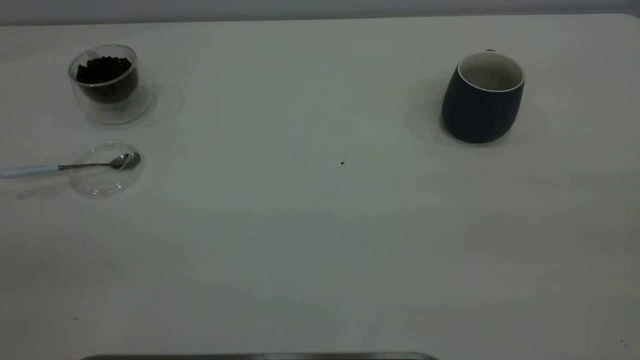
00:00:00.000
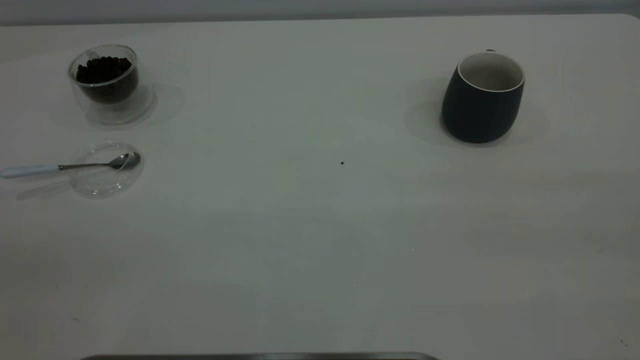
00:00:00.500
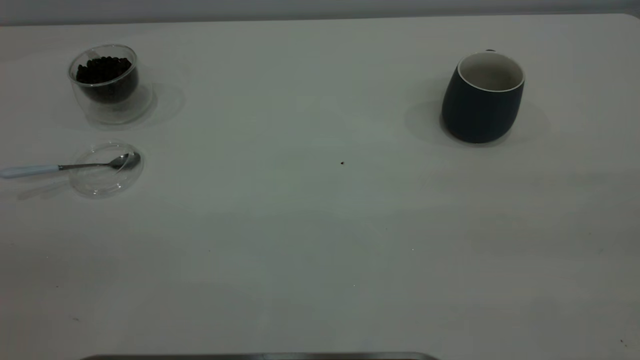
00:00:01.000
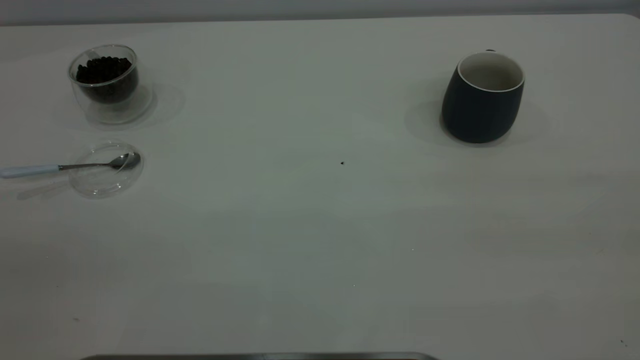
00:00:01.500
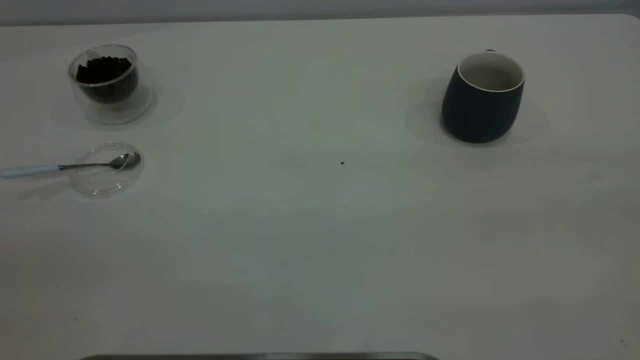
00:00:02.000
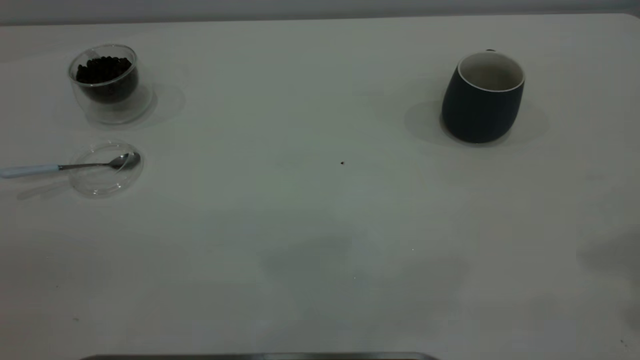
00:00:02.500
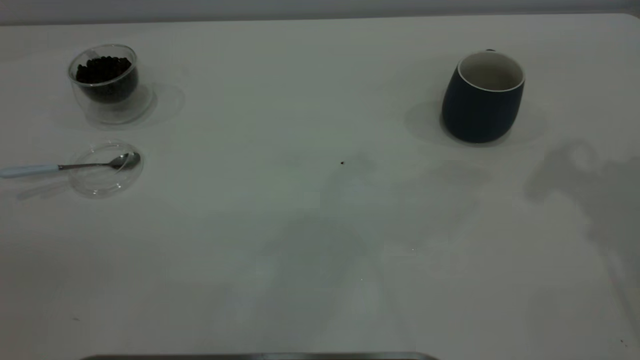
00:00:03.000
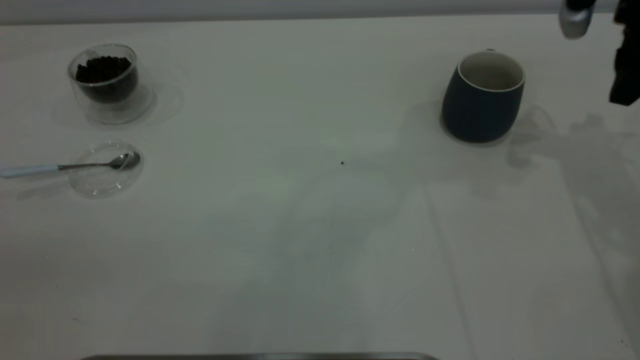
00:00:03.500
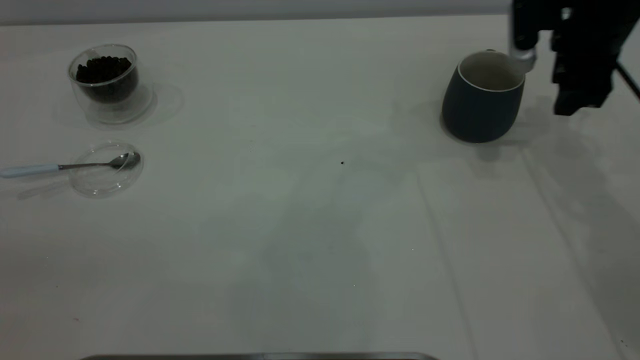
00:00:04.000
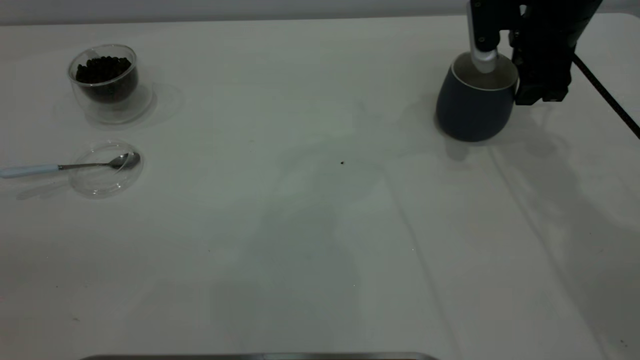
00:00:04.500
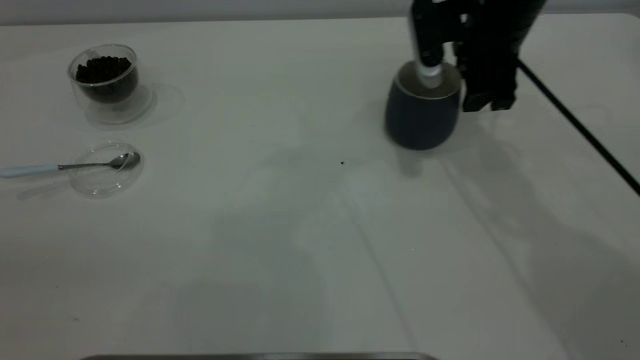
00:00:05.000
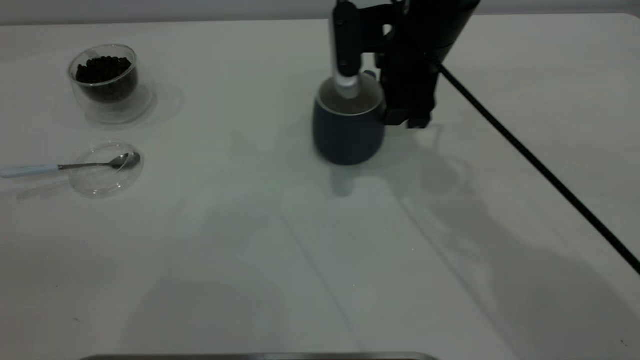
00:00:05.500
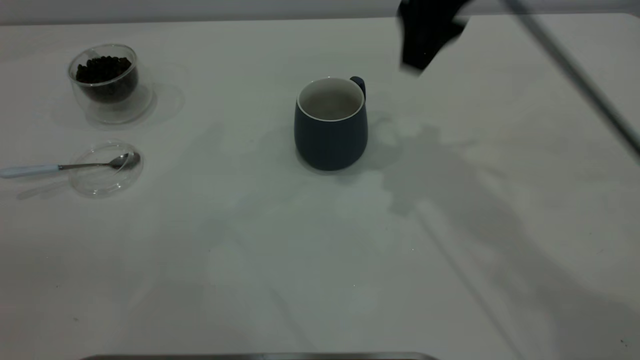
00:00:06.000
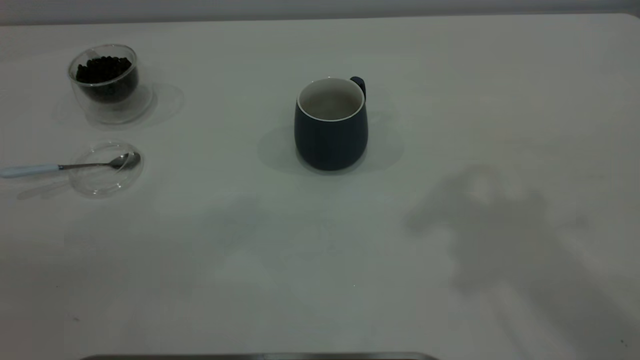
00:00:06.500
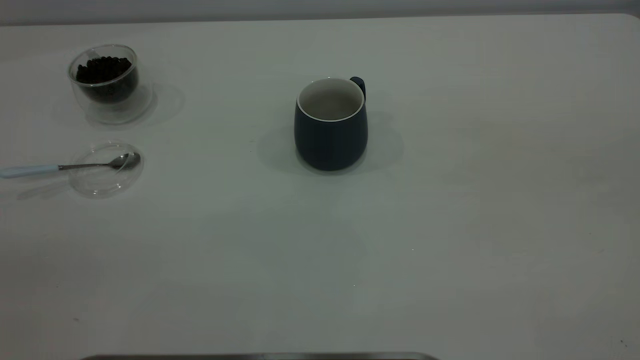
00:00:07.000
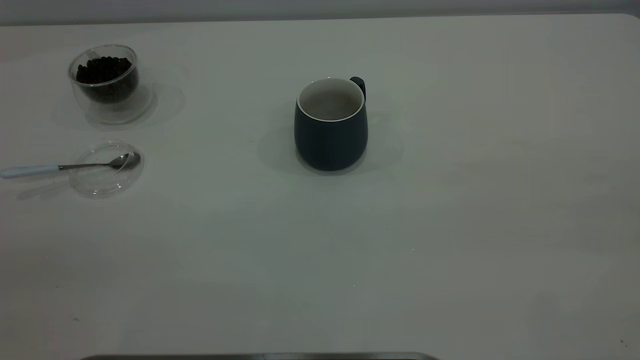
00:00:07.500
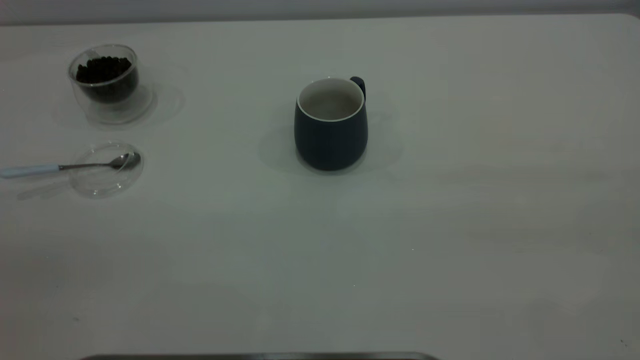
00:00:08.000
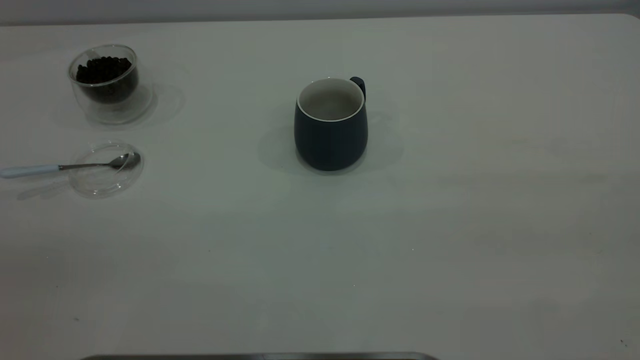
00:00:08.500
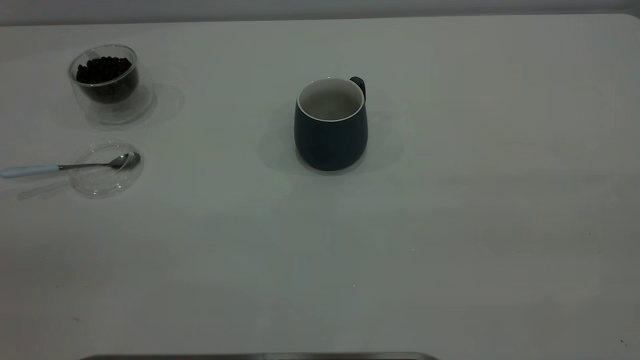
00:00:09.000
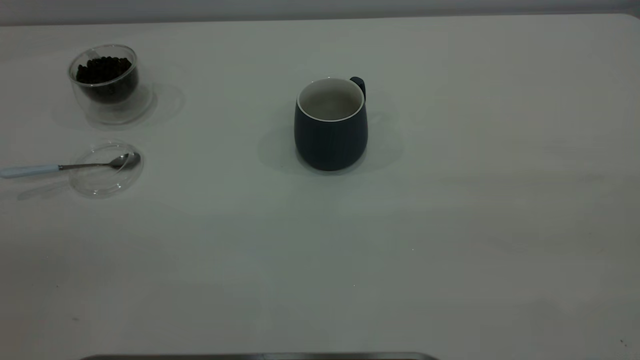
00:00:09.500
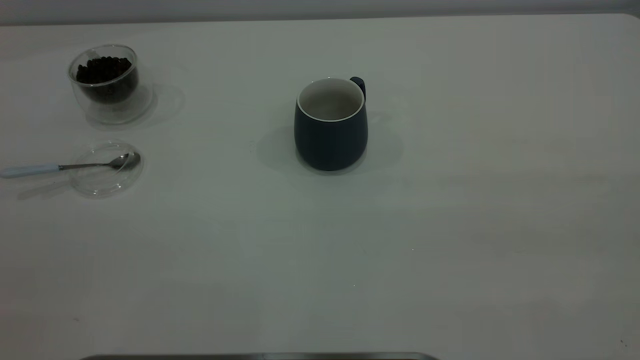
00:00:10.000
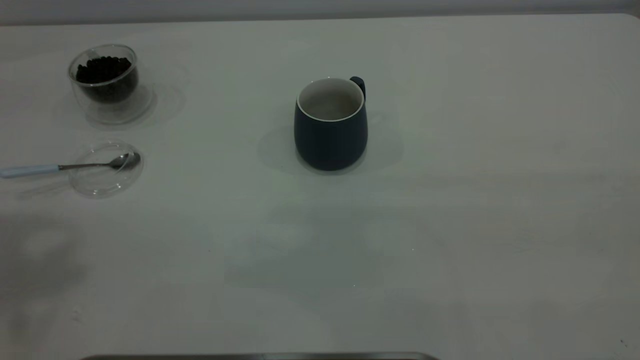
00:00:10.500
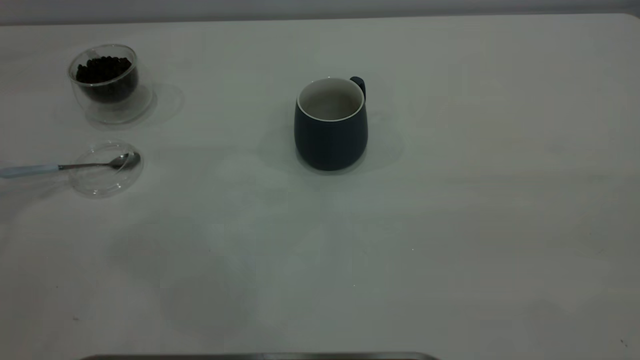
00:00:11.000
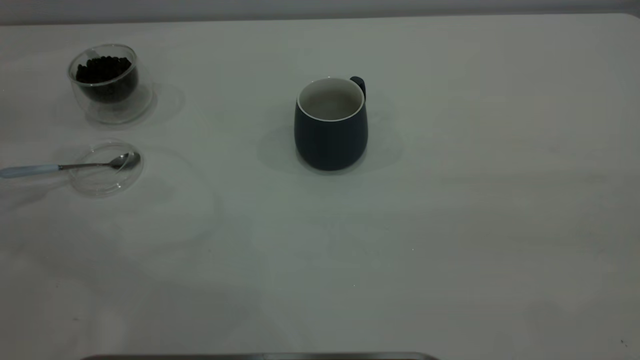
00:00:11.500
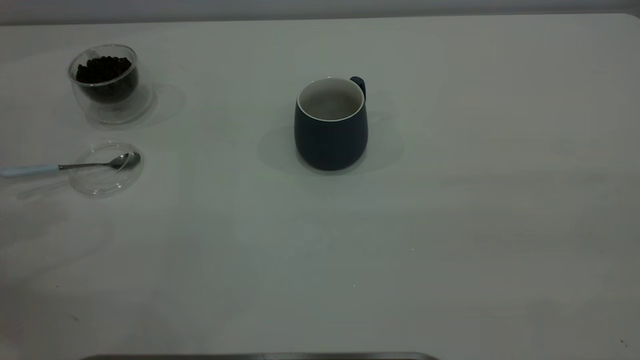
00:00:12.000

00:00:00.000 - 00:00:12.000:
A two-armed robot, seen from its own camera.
Task of the whole recording: the right gripper place the grey cup in the center of the table, the left gripper take the blue spoon from the cup lid and scoop out the coffee beans from the coffee cup and put them into the grey cup, the left gripper put the spoon back into the cup lid.
Step, 00:00:00.000 - 00:00:05.500: Move the cup to the center of view.
00:00:02.000 - 00:00:04.000: The right gripper travels forward and downward by some 50 cm.
00:00:04.000 - 00:00:06.000: The right gripper heads to the left, upward and backward, covering about 20 cm.
00:00:06.000 - 00:00:08.000: The right gripper goes approximately 40 cm backward and to the right.

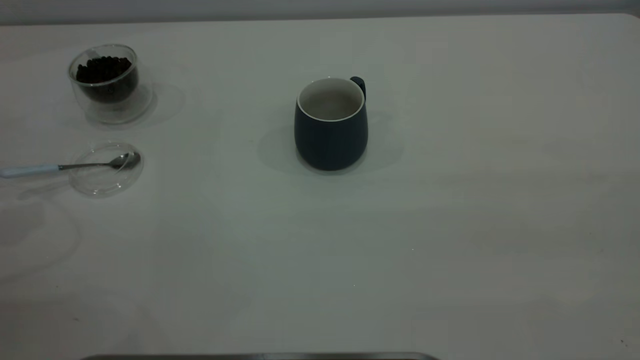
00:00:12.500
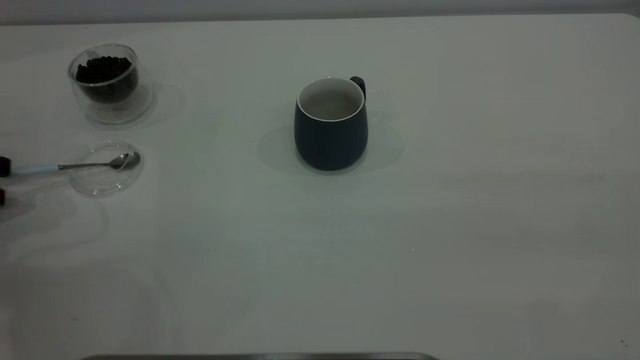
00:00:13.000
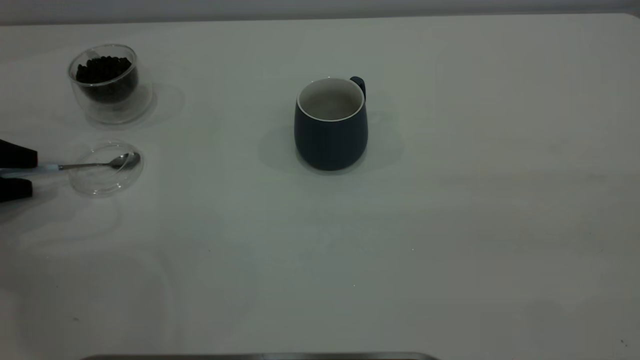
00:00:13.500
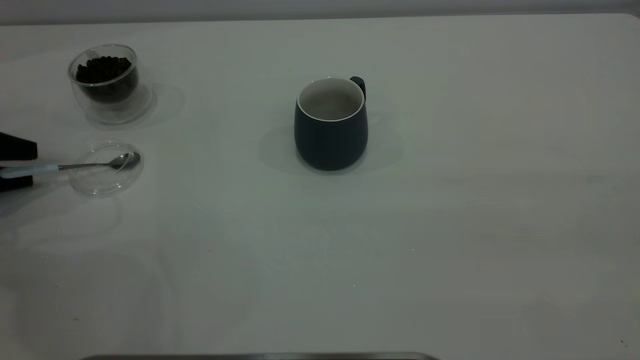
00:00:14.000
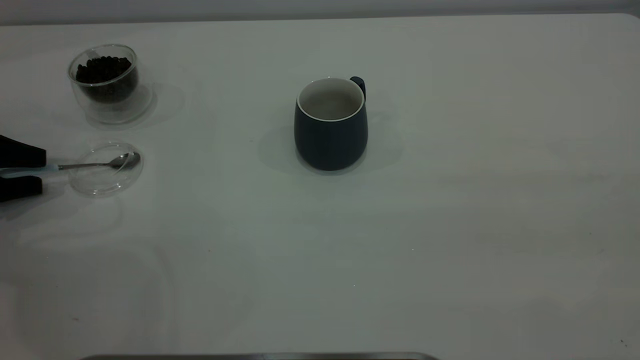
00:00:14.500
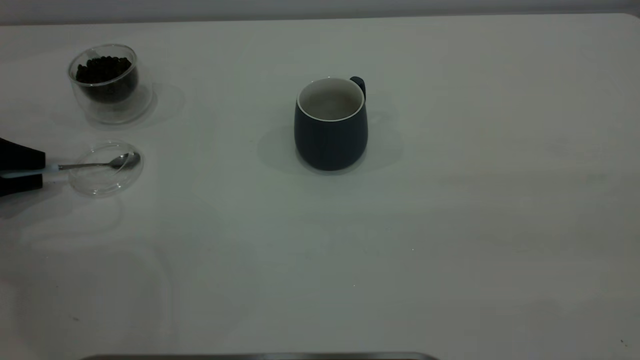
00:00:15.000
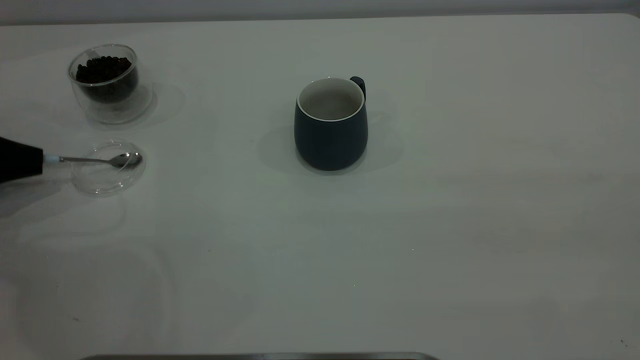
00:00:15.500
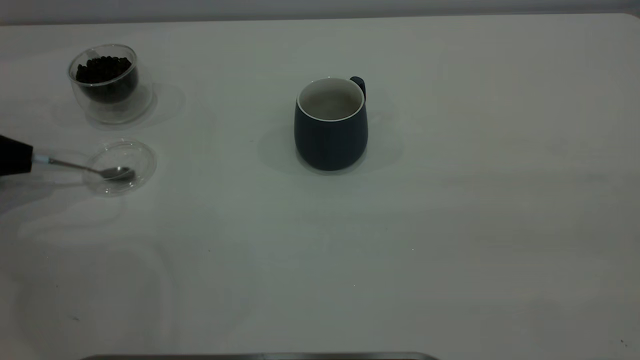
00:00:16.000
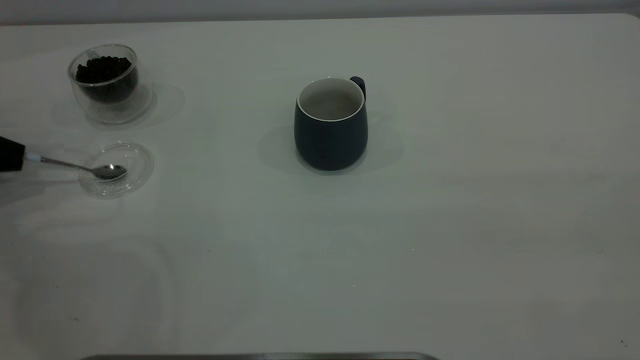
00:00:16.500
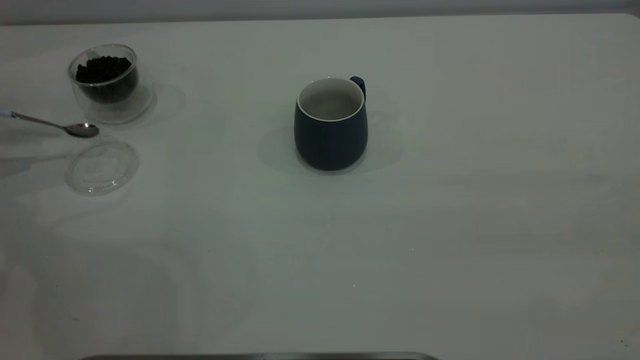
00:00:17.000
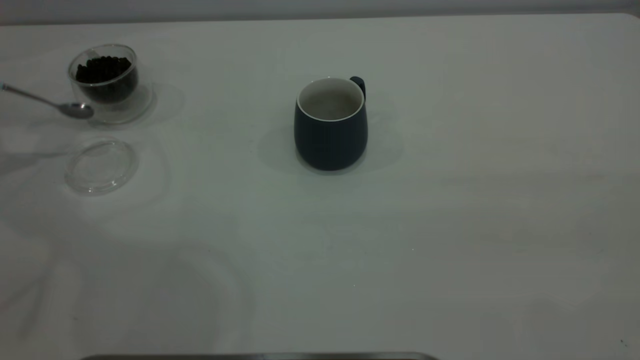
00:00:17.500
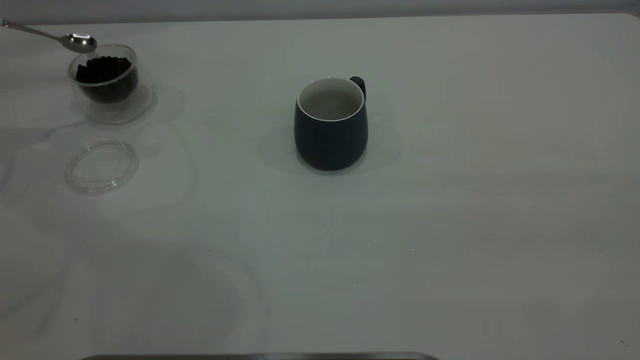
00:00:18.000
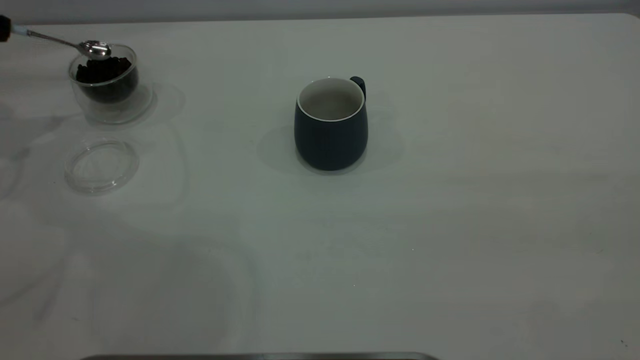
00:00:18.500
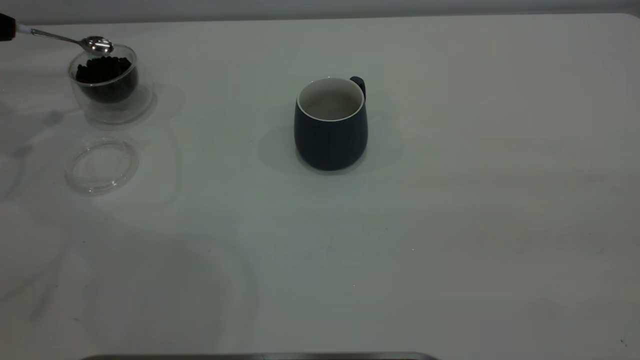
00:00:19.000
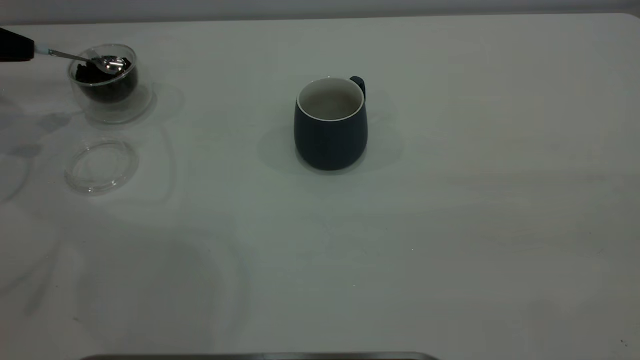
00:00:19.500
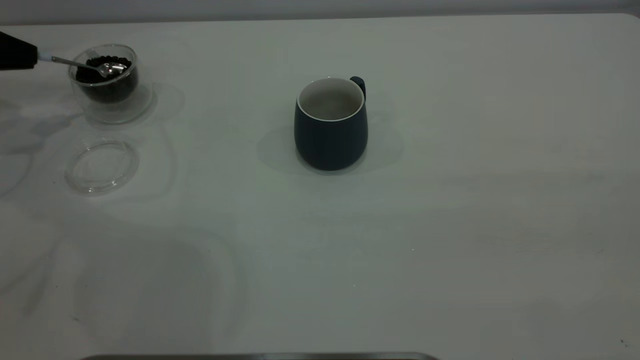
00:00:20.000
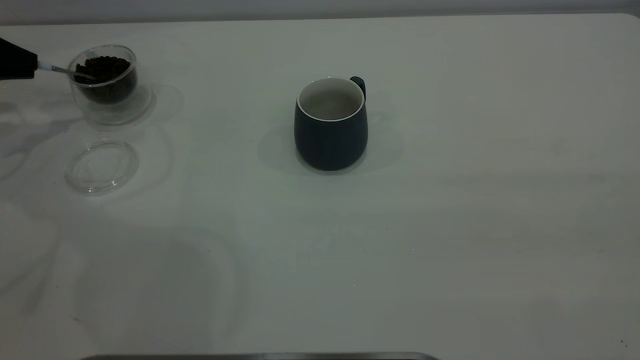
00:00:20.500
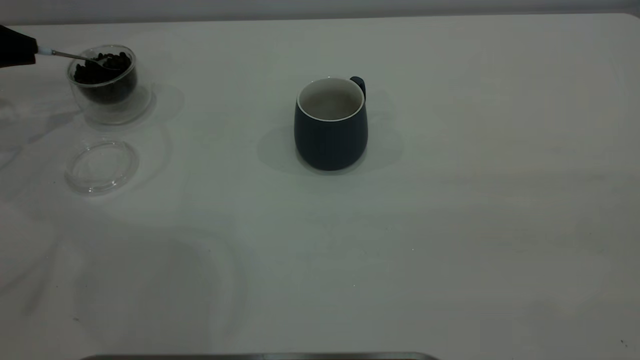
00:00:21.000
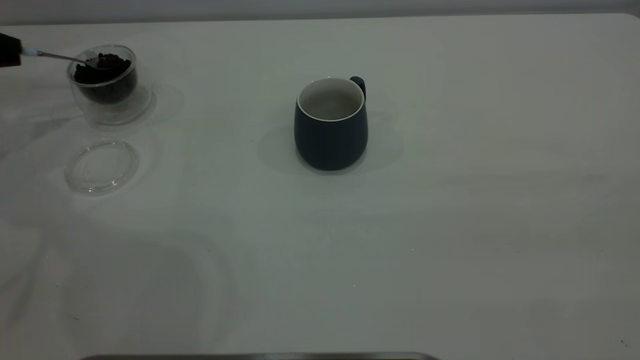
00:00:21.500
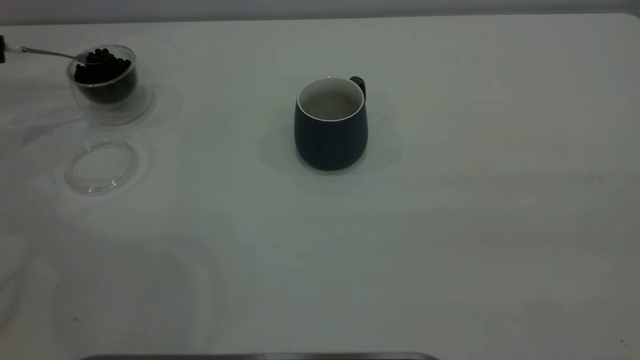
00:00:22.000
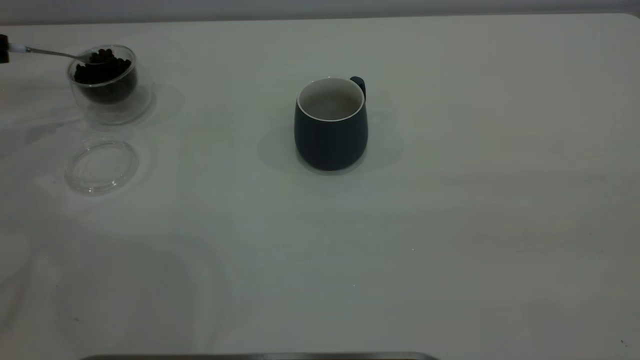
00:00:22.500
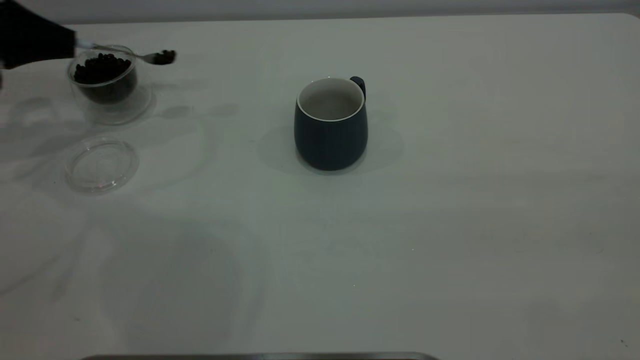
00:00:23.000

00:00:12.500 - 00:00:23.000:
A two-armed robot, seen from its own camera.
Task of the whole recording: the right gripper place the grey cup in the center of the table, the left gripper take the blue spoon from the cup lid and scoop out the coffee beans from the coffee cup and put them into the grey cup, the left gripper put the spoon back into the cup lid.
Step, 00:00:12.500 - 00:00:17.500: Pick up the spoon.
00:00:12.500 - 00:00:14.500: The left gripper shifts some 5 cm to the right.
00:00:14.500 - 00:00:16.500: The left gripper closes.
00:00:16.500 - 00:00:19.000: The left gripper heads upward and forward, covering some 15 cm.
00:00:21.000 - 00:00:23.000: The left gripper goes some 5 cm to the right.
